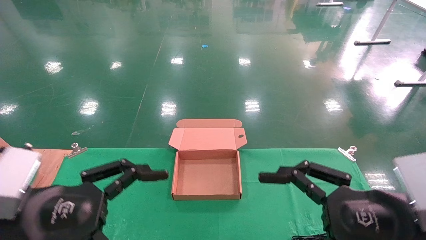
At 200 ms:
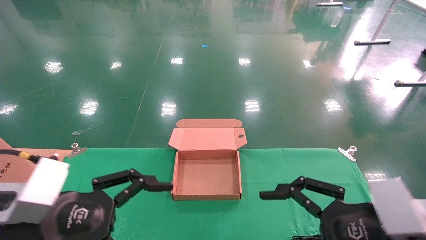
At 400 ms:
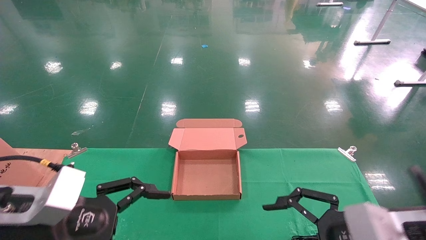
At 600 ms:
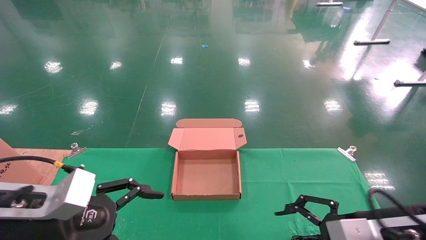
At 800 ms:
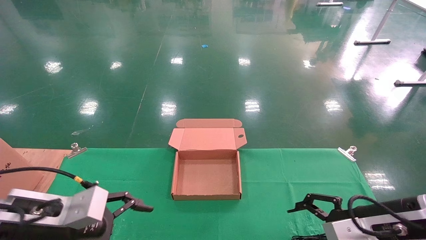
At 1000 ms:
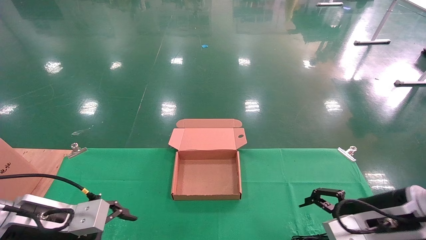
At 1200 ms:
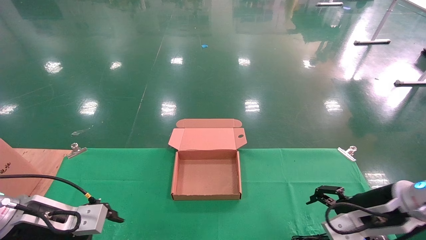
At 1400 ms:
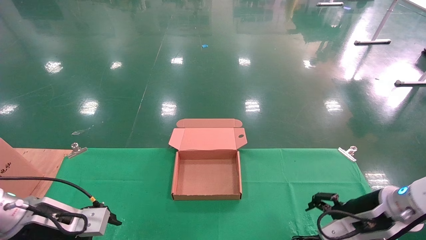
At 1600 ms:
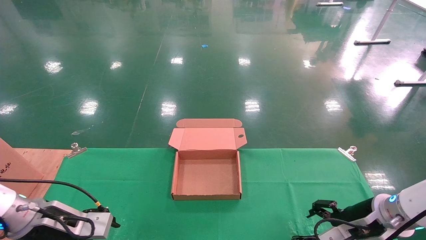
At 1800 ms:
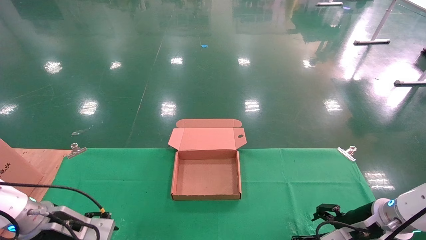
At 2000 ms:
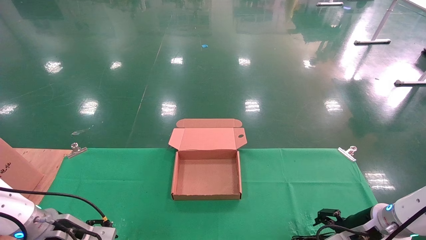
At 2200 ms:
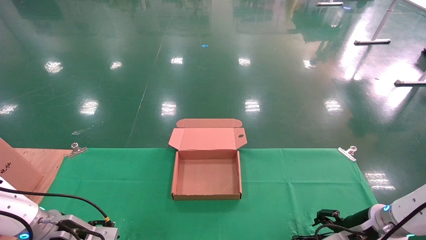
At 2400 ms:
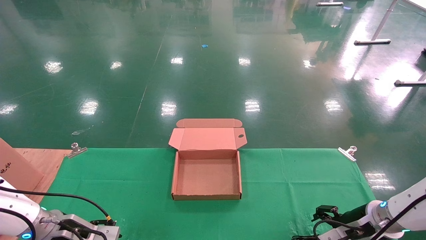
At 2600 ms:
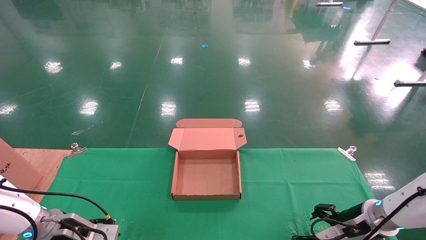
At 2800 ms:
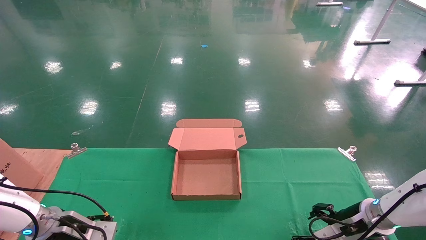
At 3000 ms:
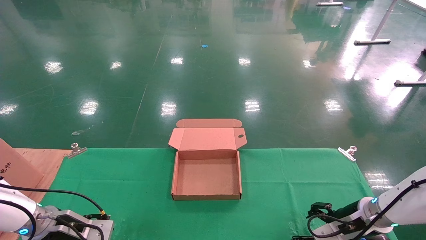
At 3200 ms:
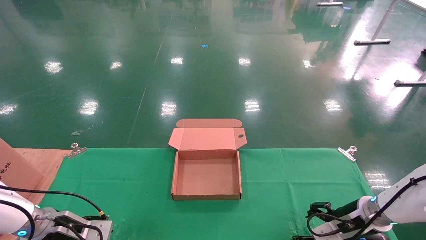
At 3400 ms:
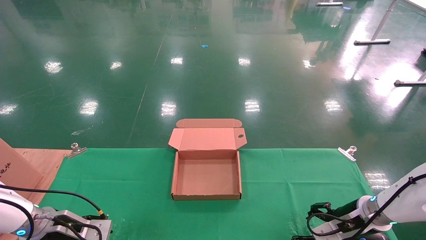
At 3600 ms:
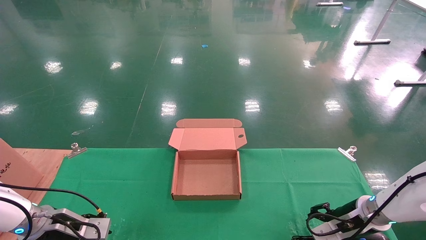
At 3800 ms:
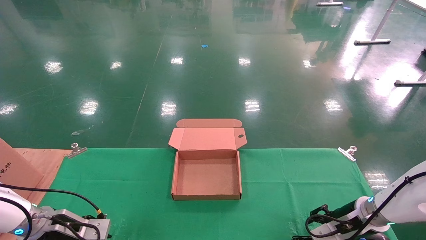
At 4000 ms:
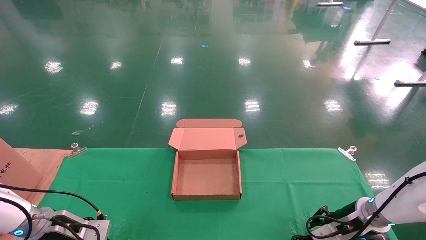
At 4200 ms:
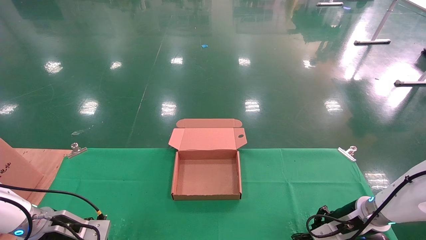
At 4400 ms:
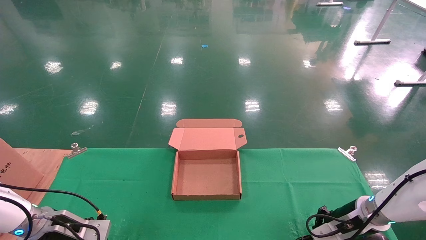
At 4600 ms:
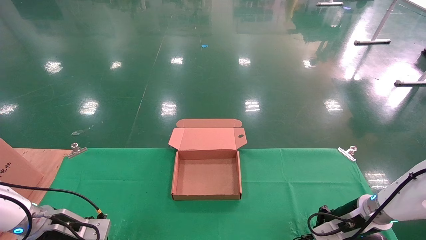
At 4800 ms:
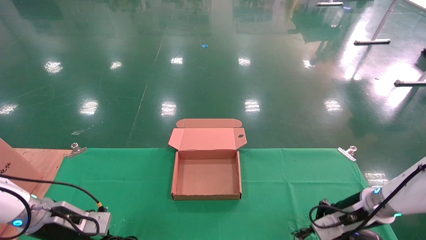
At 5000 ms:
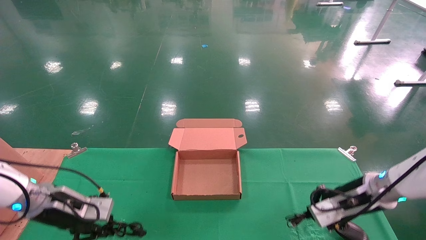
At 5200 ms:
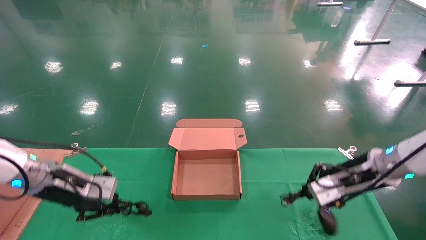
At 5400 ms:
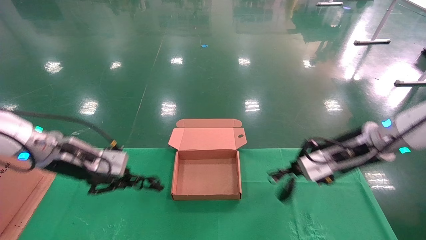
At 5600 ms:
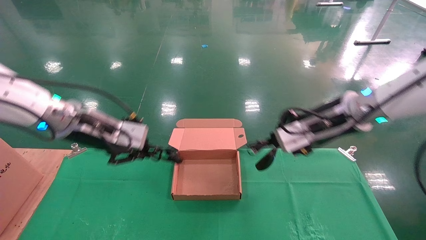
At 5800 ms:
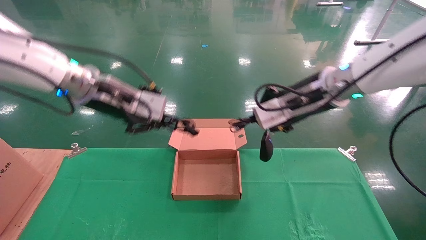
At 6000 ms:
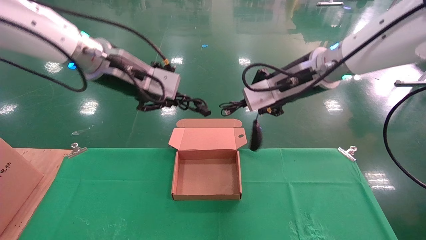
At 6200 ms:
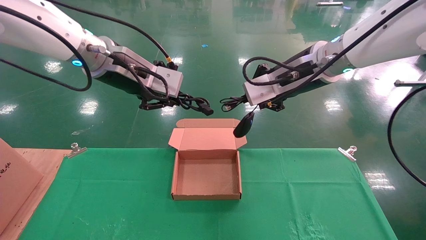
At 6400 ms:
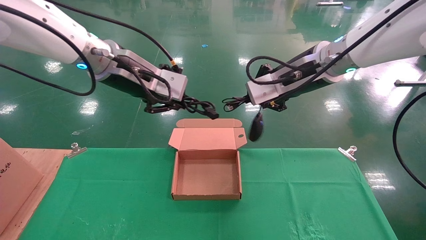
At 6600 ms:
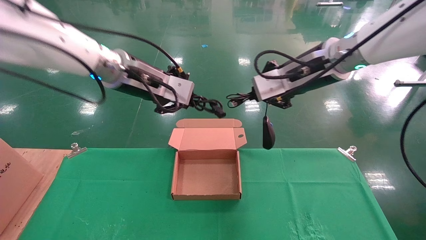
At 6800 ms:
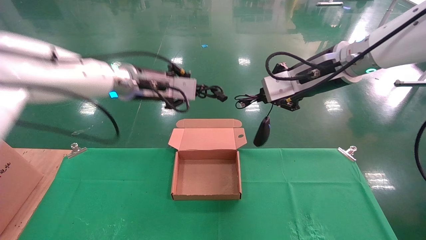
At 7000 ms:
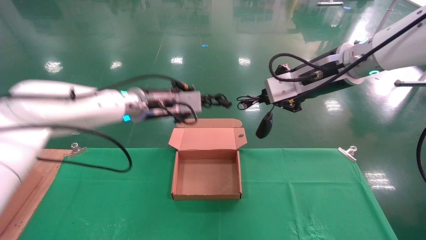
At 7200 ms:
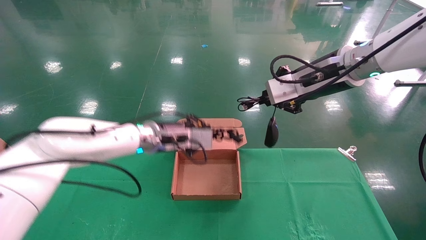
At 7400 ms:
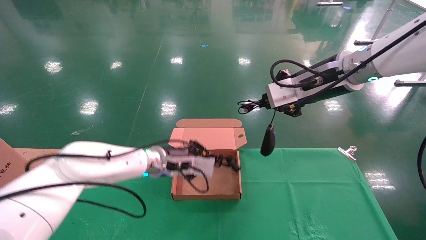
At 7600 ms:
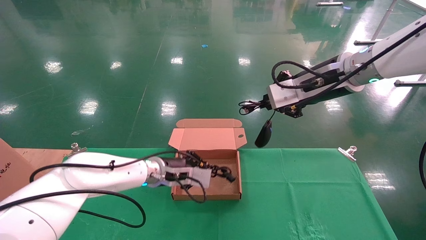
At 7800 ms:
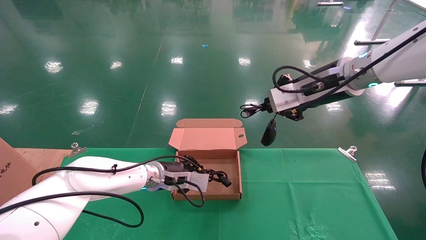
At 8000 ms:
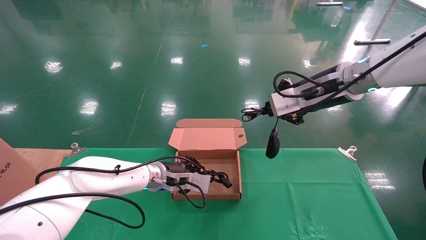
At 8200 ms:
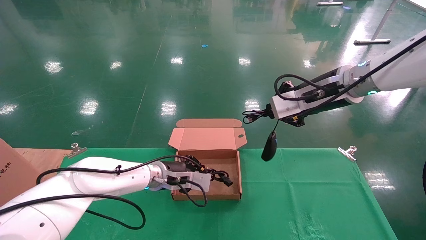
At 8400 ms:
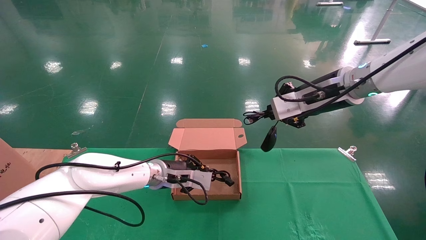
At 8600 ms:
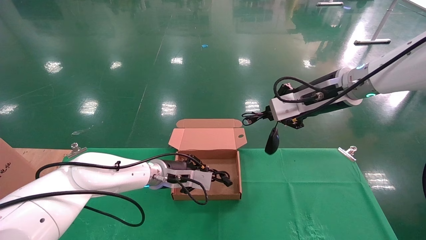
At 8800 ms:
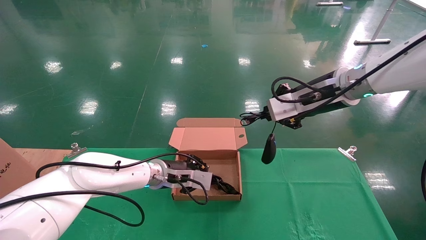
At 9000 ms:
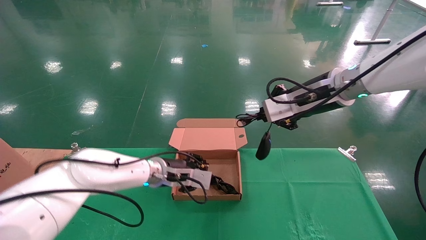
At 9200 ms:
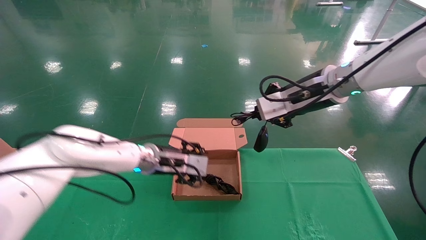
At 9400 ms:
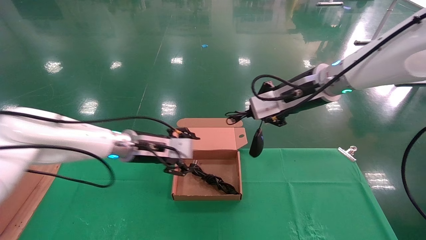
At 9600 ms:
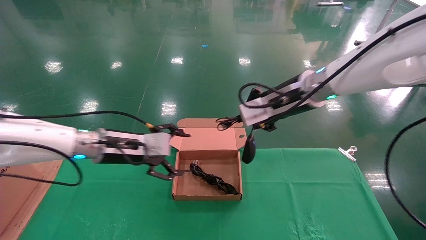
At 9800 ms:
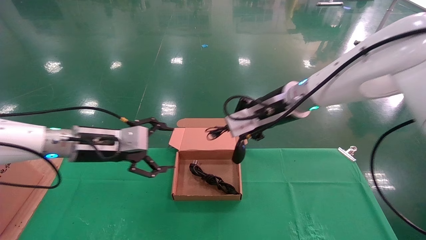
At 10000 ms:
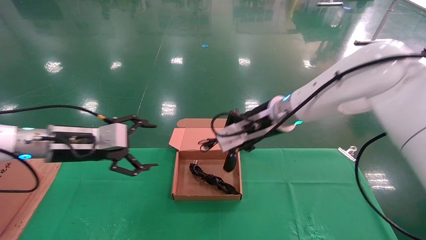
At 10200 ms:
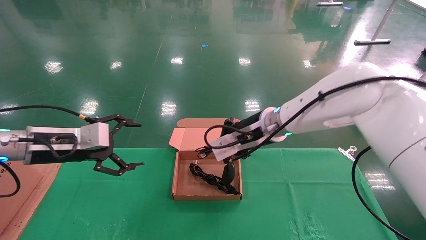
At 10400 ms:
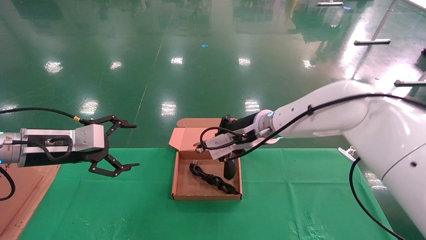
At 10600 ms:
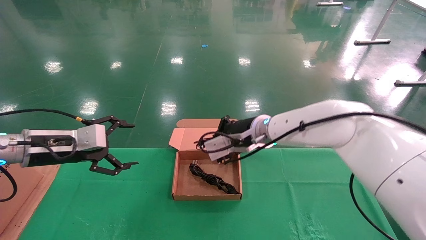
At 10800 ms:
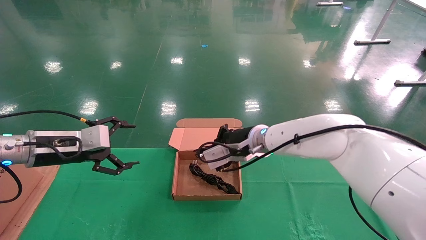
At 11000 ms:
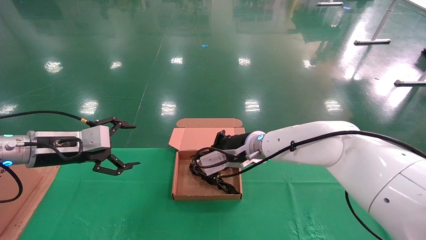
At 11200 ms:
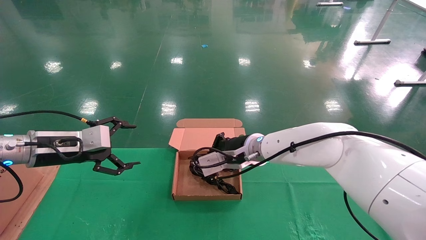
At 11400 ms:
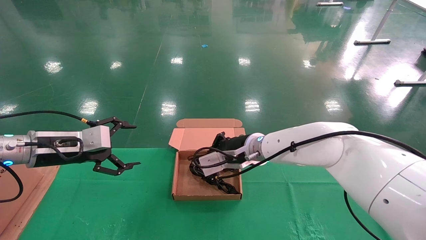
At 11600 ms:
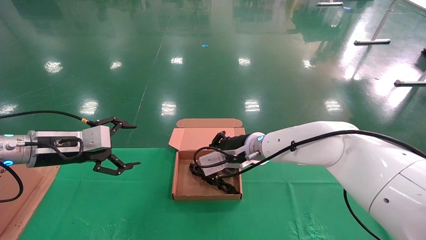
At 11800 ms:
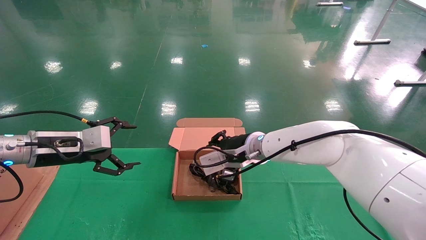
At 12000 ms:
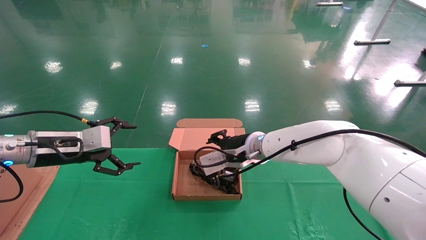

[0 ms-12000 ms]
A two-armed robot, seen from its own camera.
Step, 2400 ms to 8000 ms: Grab and lift both the mouse and power cord from the accessory packaging area at the same time.
0 ms to 1600 ms: The left gripper travels forward, downward and to the left by about 20 cm. Meanwhile the right gripper travels forward and downward by roughly 20 cm.
1600 ms to 3000 ms: The left gripper is displaced downward by approximately 5 cm. Meanwhile the right gripper moves forward and downward, some 10 cm.
3000 ms to 4400 ms: The right gripper closes its fingers; the left gripper closes.
4400 ms to 6000 ms: The right gripper heads upward and to the left, covering approximately 35 cm, while the left gripper moves upward and to the right, approximately 35 cm.
6000 ms to 7600 ms: The left gripper is displaced downward and forward by roughly 25 cm.
7600 ms to 9000 ms: The grippers move only a little.
9000 ms to 10400 ms: The left gripper travels to the left, backward and upward by some 25 cm, and opens. Meanwhile the right gripper moves to the left and downward, approximately 15 cm.
10400 ms to 12000 ms: The right gripper is displaced downward by about 5 cm, and opens up.

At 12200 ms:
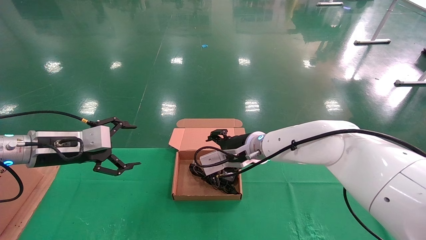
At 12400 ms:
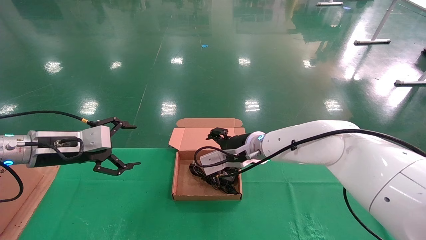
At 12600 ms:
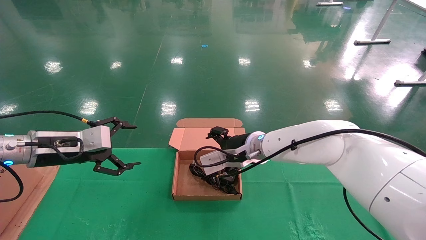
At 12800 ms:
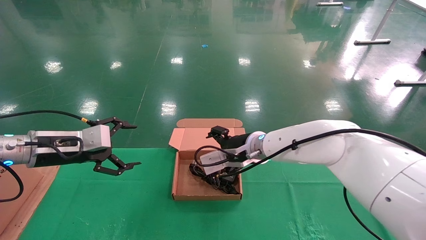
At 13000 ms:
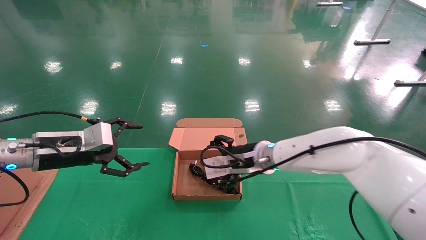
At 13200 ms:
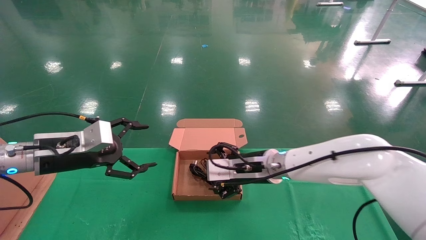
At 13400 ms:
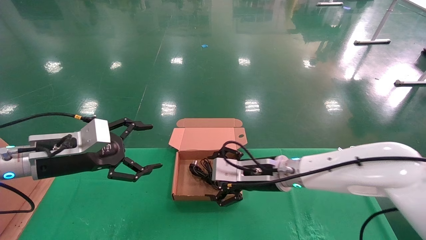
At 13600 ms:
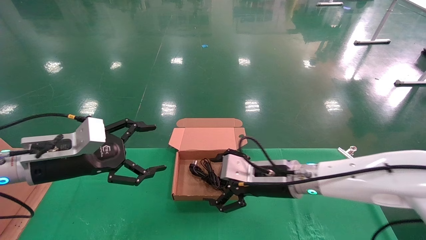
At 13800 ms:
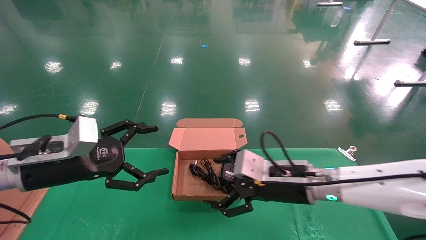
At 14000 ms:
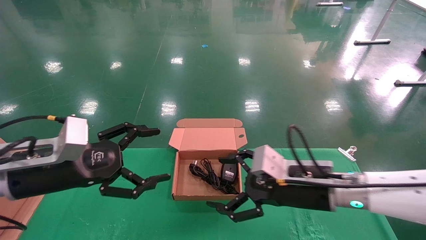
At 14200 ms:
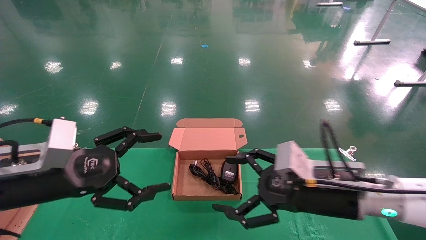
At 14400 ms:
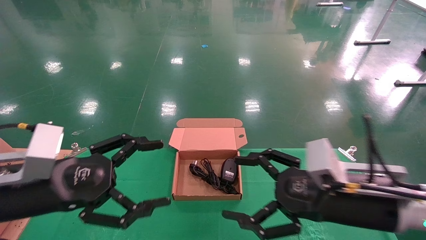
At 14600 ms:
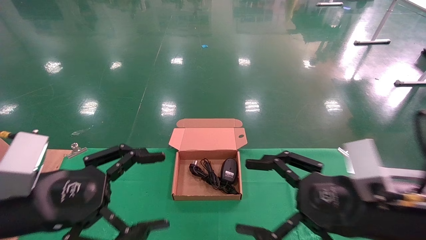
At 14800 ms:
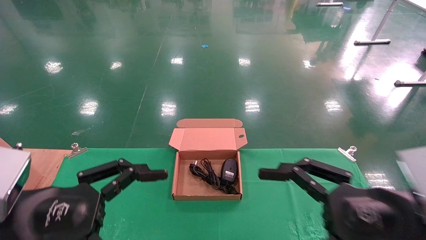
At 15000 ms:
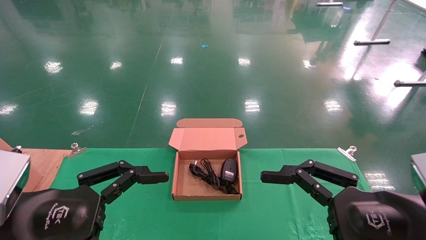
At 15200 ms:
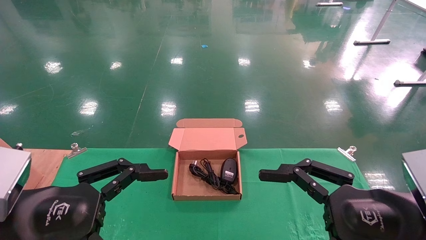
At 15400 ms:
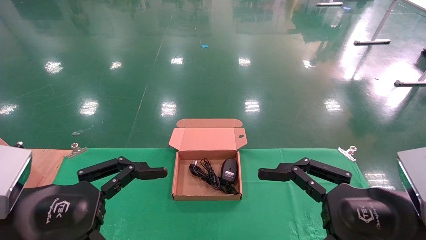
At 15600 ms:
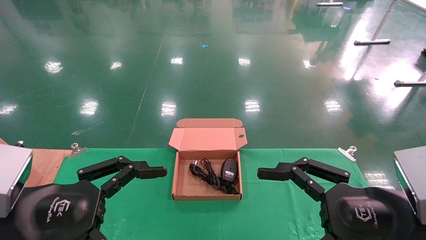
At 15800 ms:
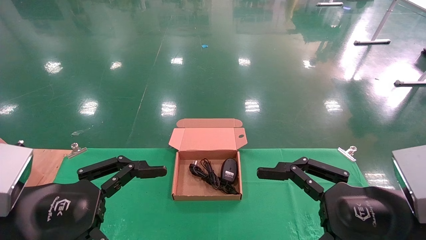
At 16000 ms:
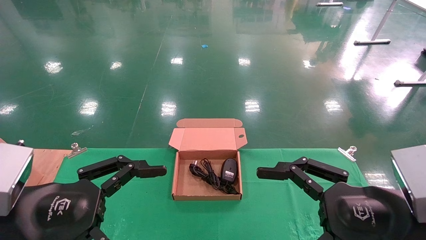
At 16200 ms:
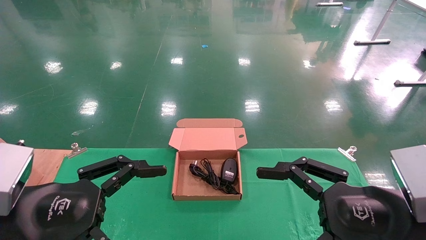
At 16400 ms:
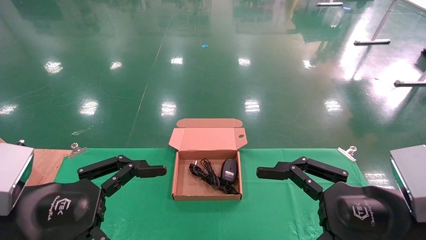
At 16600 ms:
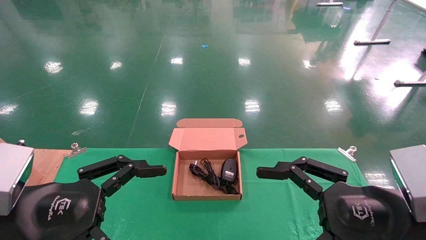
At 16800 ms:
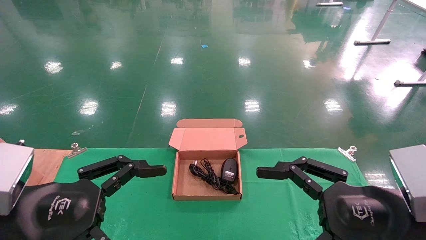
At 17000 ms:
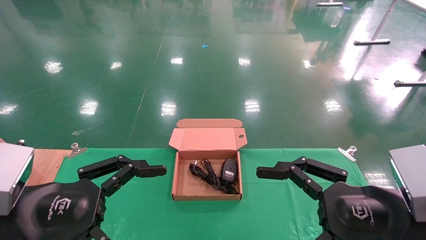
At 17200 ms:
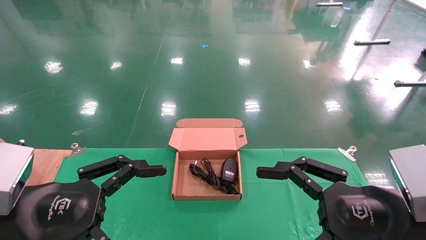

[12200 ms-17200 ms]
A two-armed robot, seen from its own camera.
12200 ms to 13800 ms: The right gripper is displaced backward and to the right by some 15 cm, and opens. Meanwhile the left gripper shifts about 5 cm backward.
13800 ms to 15600 ms: The right gripper travels backward and to the right by some 20 cm; the left gripper moves backward, roughly 15 cm.
15600 ms to 17200 ms: Both grippers stay about where they are.
